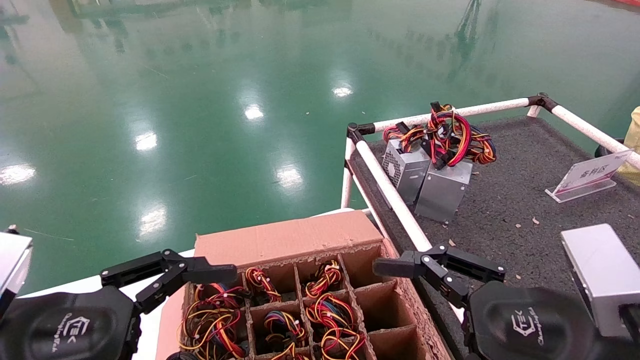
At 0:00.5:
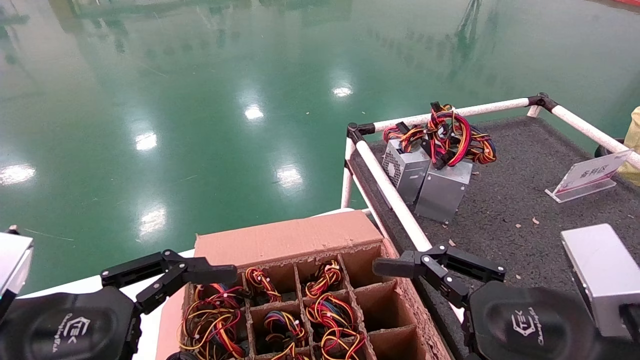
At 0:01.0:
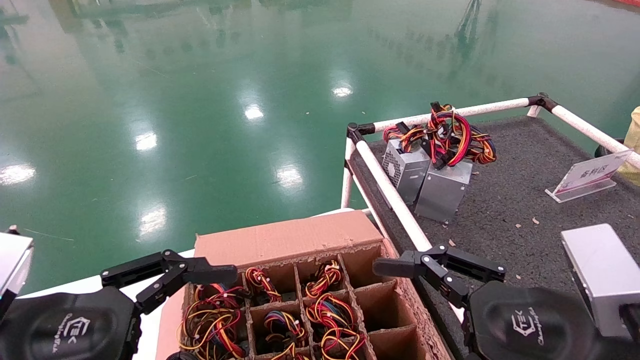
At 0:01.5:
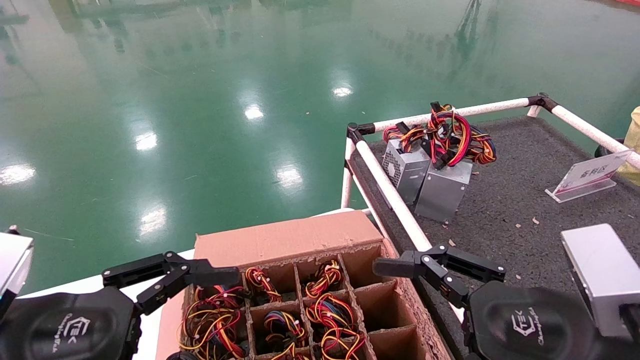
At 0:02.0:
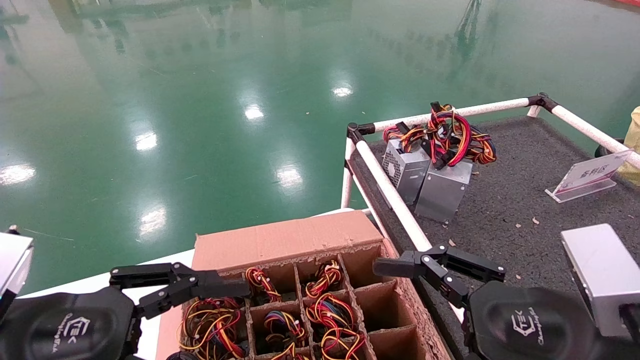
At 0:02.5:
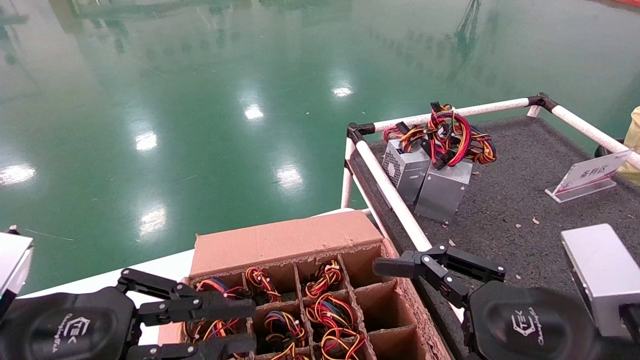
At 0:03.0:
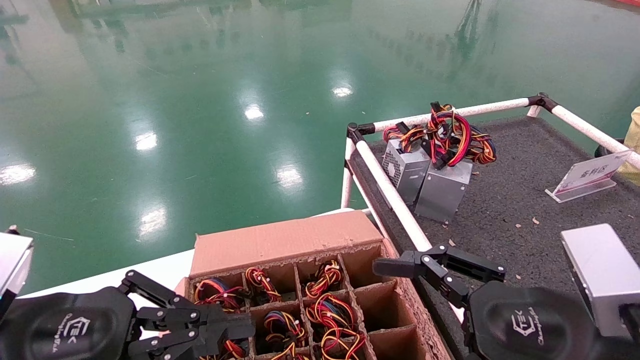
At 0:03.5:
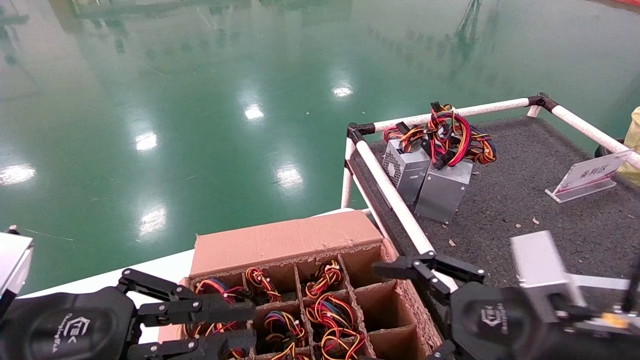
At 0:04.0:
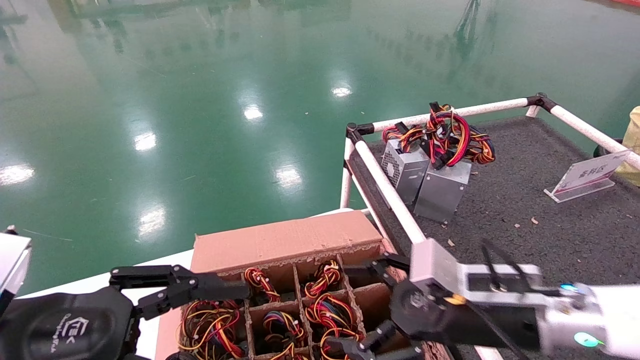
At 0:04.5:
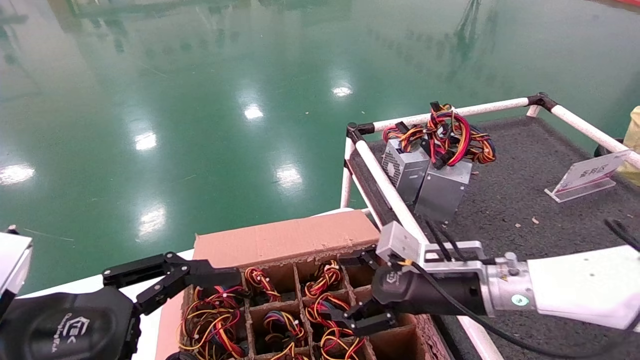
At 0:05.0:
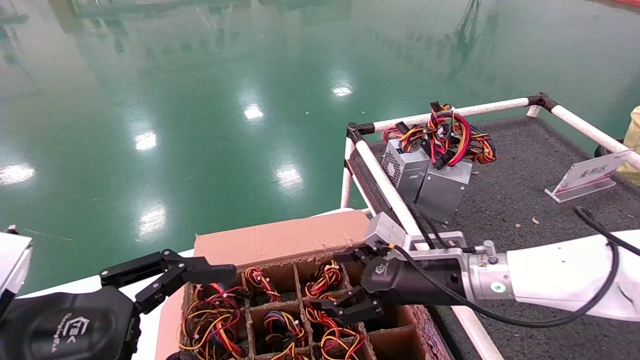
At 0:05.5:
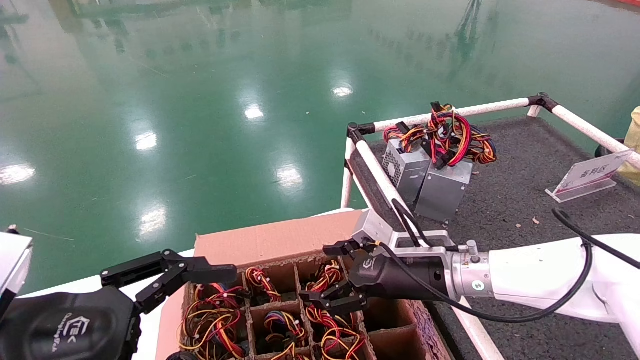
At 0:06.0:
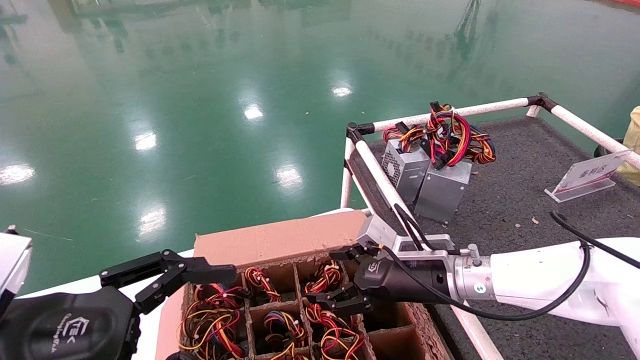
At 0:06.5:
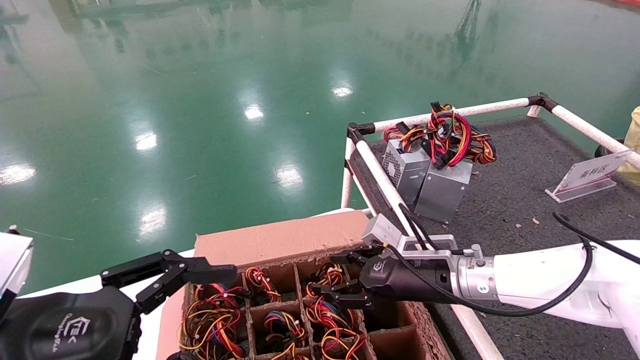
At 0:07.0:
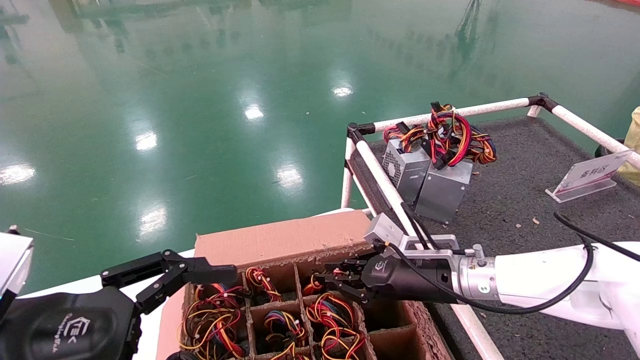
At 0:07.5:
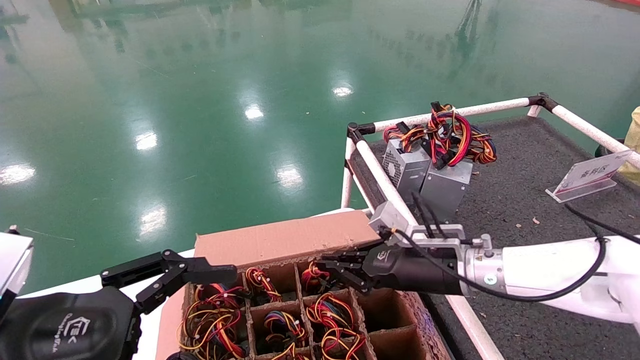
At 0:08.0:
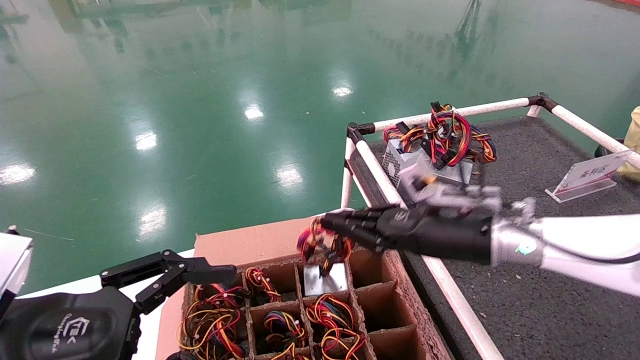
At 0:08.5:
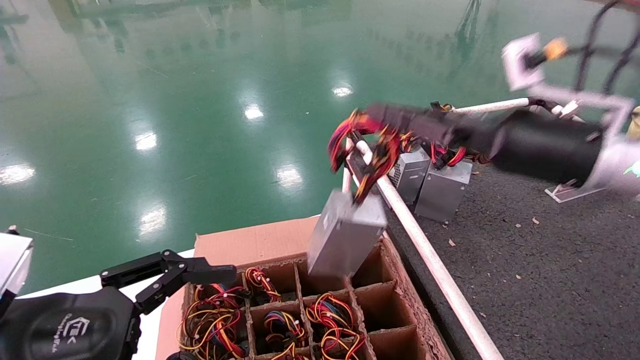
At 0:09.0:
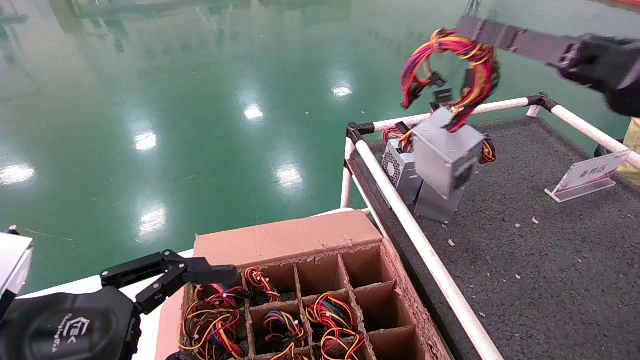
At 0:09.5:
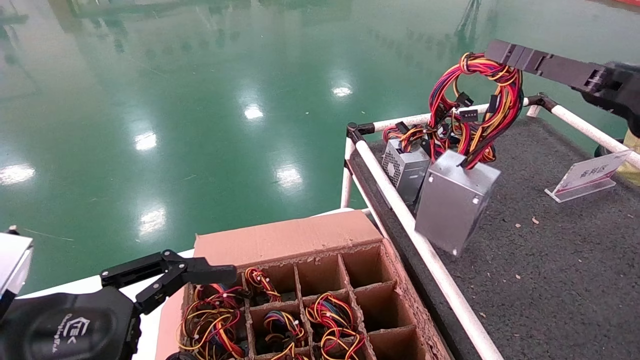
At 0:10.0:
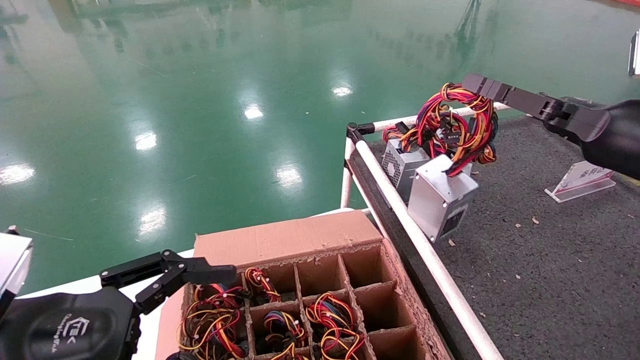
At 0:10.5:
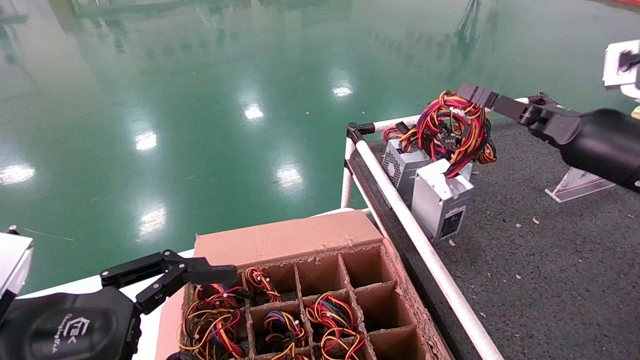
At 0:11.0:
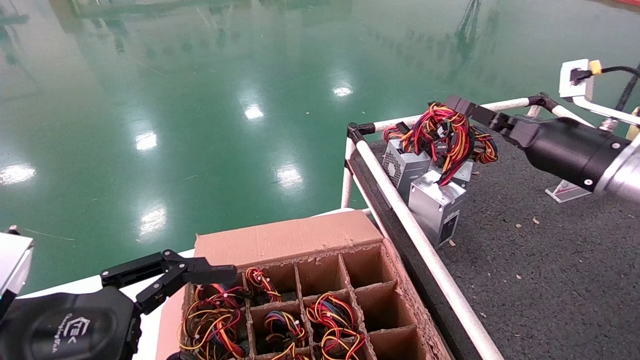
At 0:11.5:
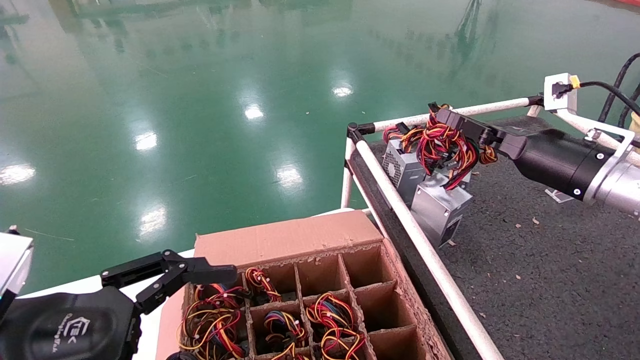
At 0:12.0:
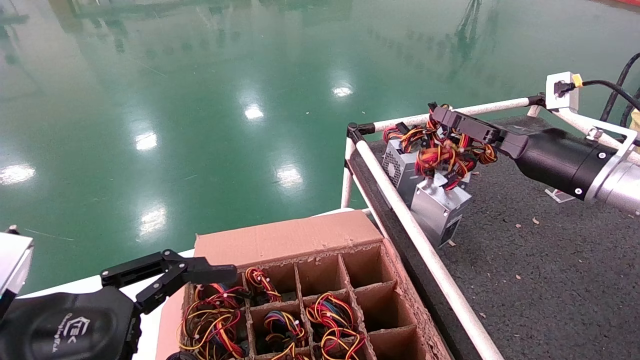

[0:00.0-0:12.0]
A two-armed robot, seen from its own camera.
Step, 0:03.0 to 0:07.5: Grab and lift the power supply from the large box.
Step, 0:08.0 to 0:11.5: Place the power supply on the operating table.
0:00.0 to 0:02.0: Neither gripper changes place.
0:02.0 to 0:04.0: The left gripper closes, then reopens; the right gripper heads forward, covering roughly 10 cm.
0:04.0 to 0:06.0: The right gripper goes roughly 10 cm forward; the left gripper opens.
0:06.0 to 0:08.0: The right gripper heads upward, covering approximately 10 cm, and closes up.
0:08.0 to 0:10.0: The right gripper heads to the right, upward and backward, covering approximately 20 cm.
0:10.0 to 0:12.0: The right gripper heads forward, covering roughly 10 cm.

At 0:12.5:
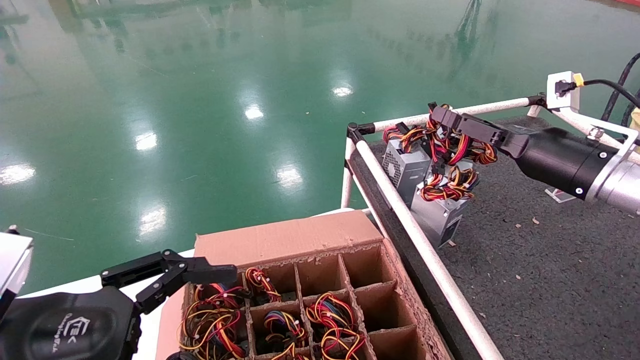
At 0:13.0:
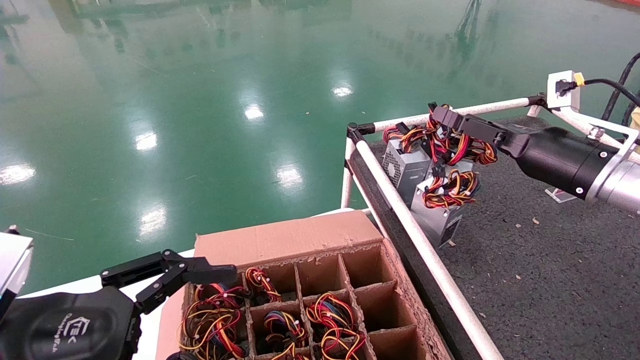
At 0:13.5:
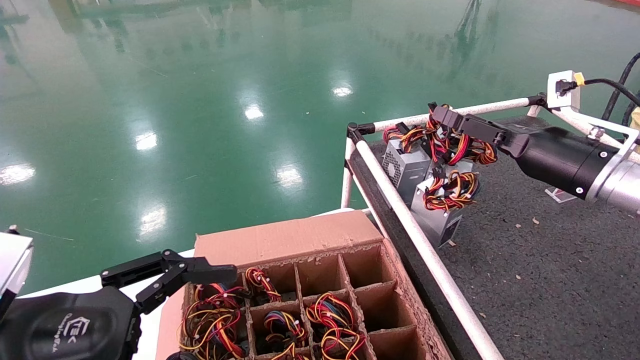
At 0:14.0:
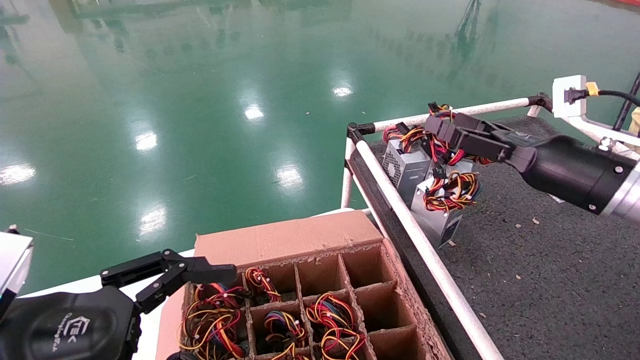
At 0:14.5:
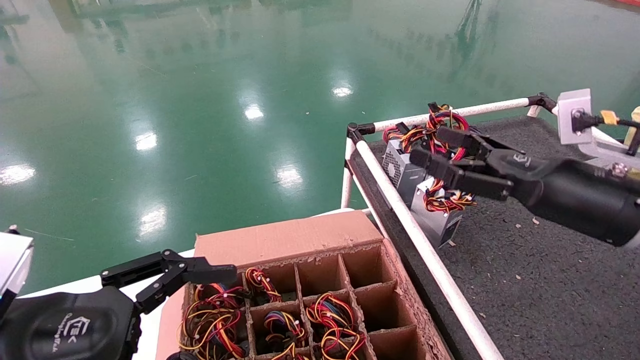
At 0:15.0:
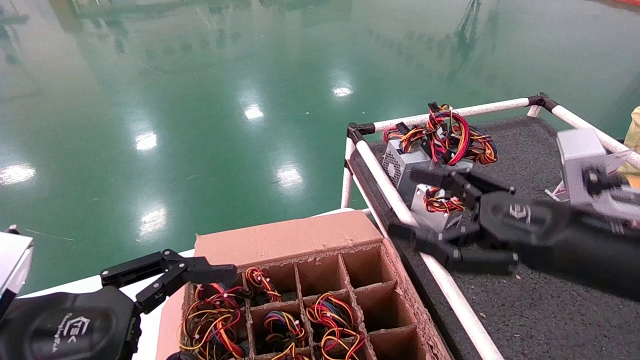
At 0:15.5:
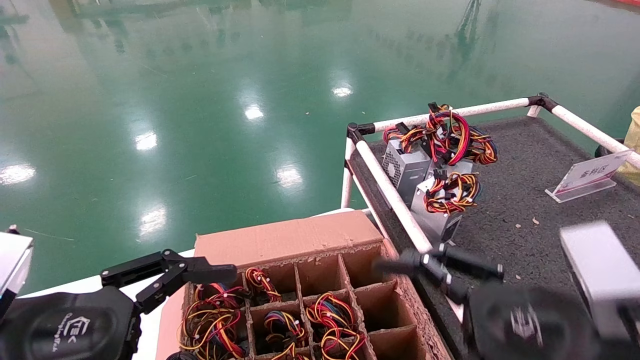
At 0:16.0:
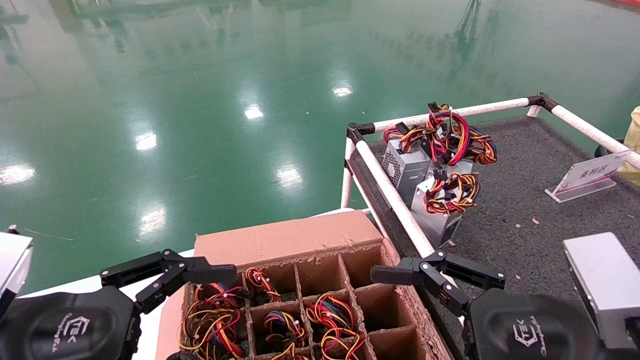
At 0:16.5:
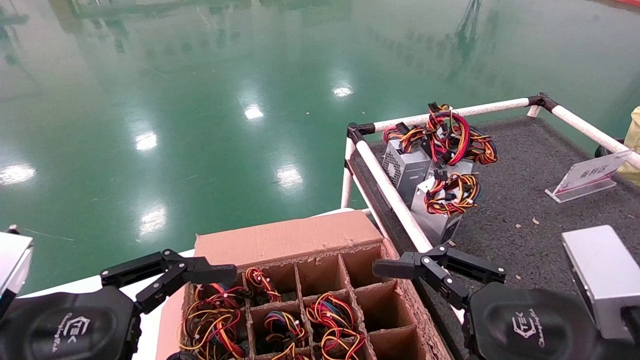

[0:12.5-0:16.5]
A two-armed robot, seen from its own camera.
0:12.5 to 0:14.5: The right gripper moves backward, roughly 10 cm.
0:14.5 to 0:16.5: The right gripper goes approximately 15 cm backward, to the left and downward.
